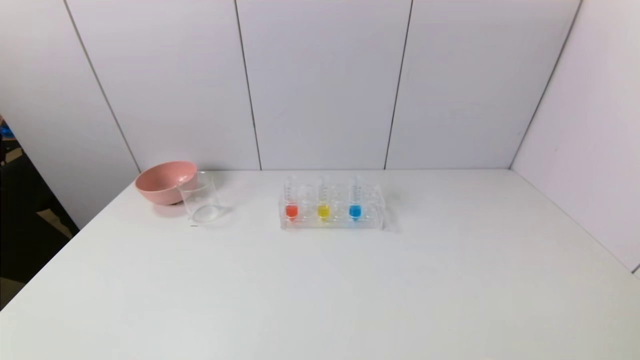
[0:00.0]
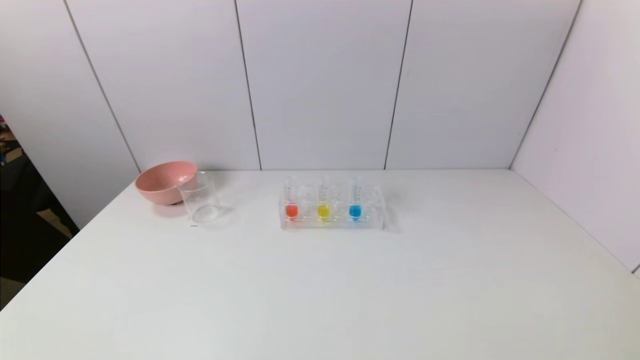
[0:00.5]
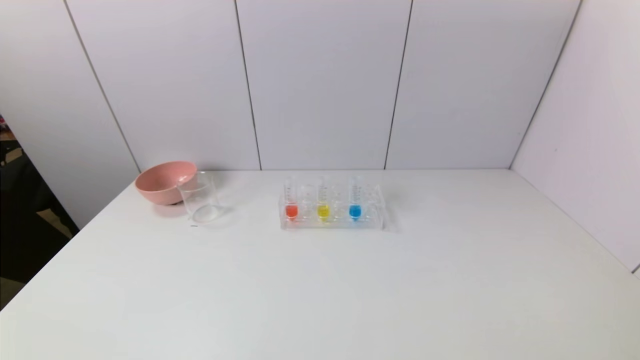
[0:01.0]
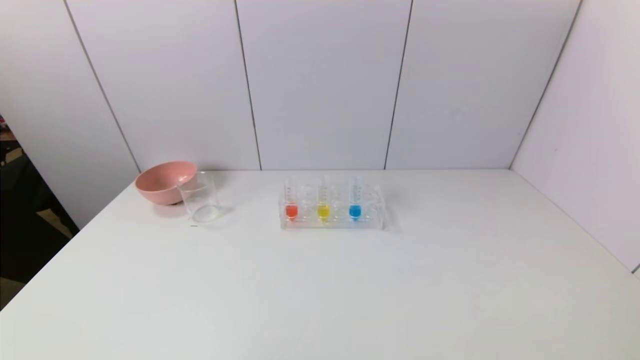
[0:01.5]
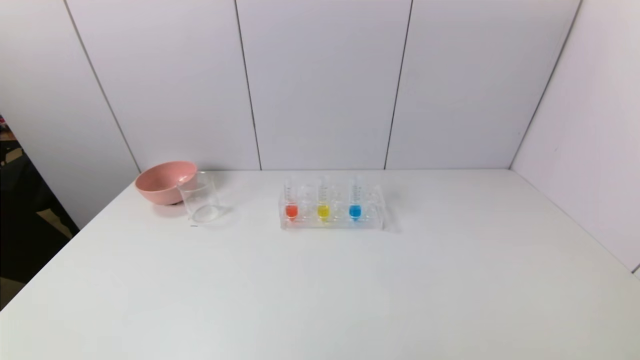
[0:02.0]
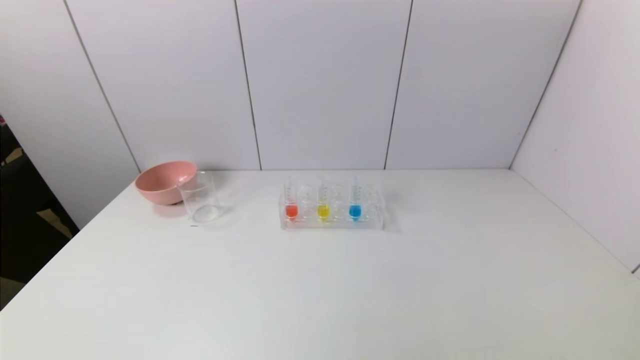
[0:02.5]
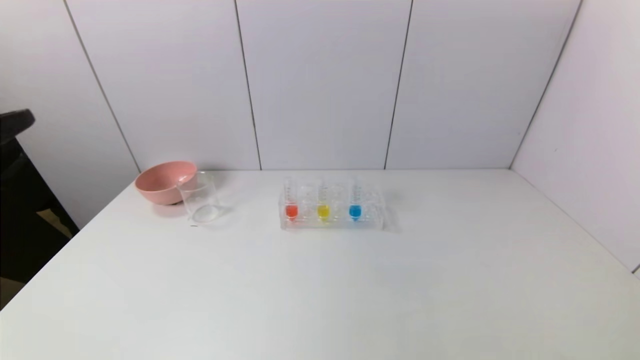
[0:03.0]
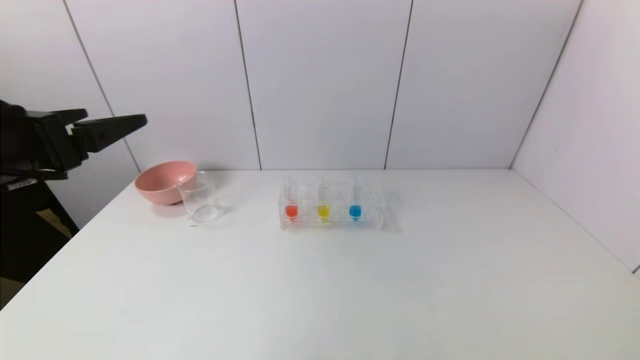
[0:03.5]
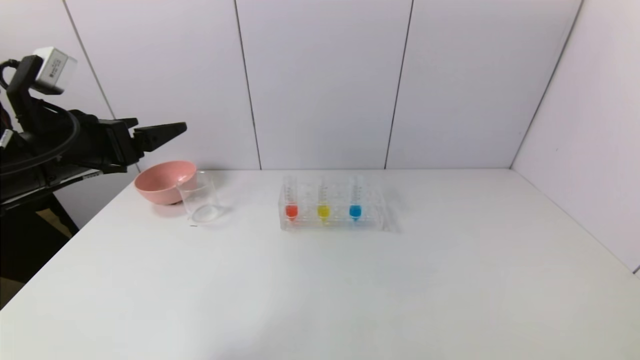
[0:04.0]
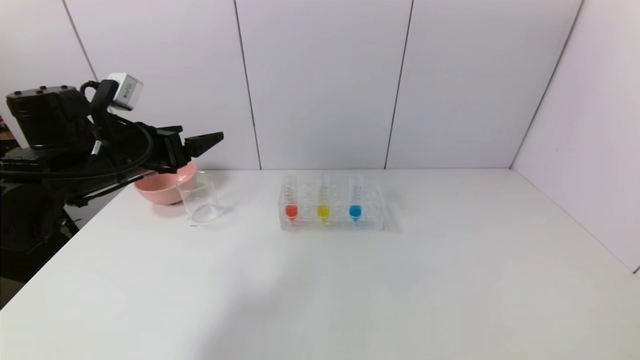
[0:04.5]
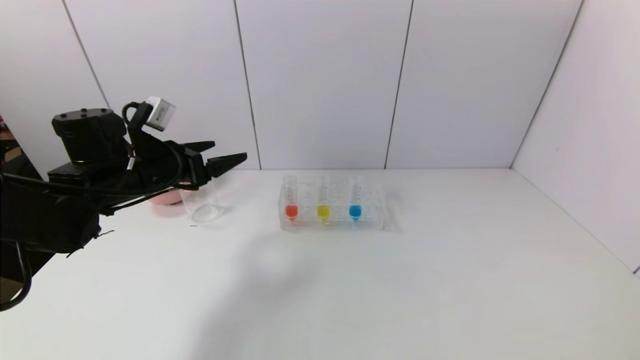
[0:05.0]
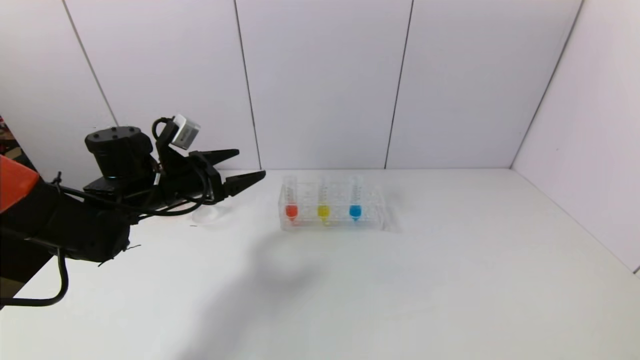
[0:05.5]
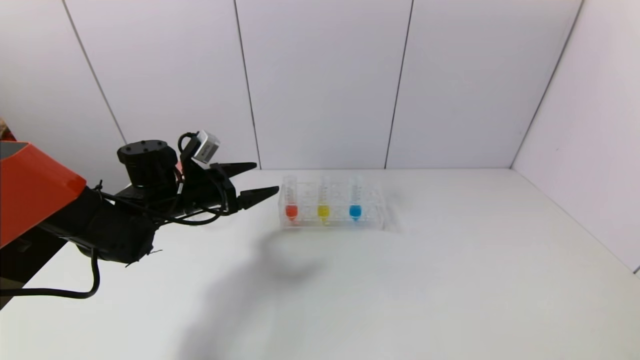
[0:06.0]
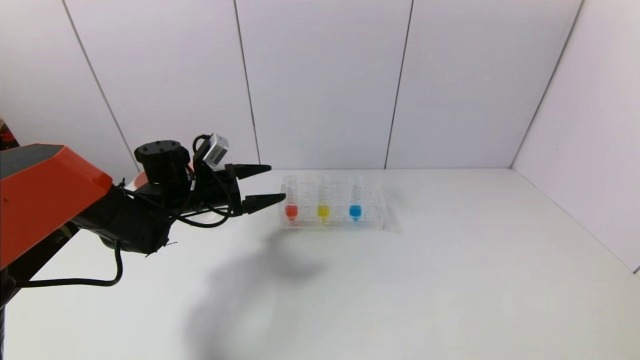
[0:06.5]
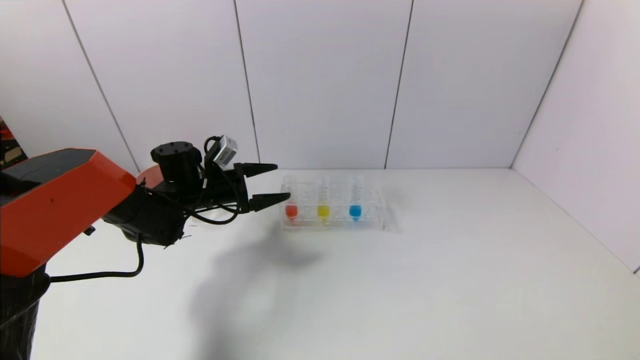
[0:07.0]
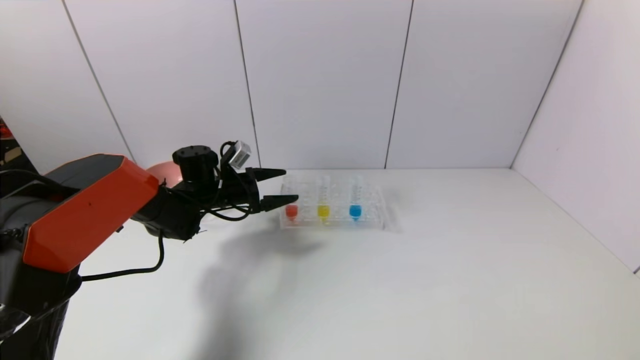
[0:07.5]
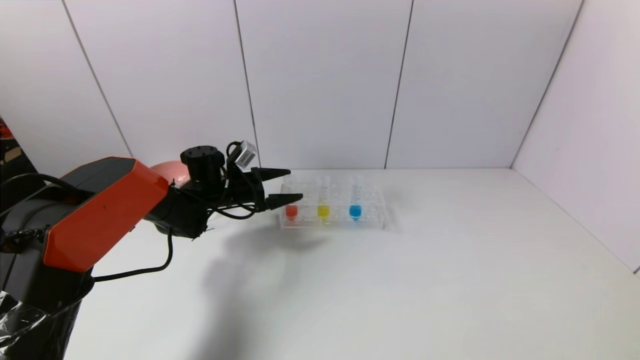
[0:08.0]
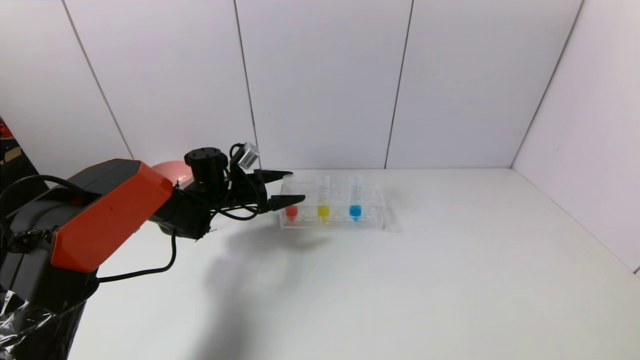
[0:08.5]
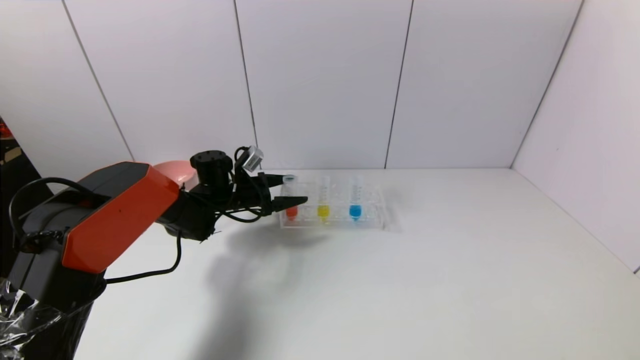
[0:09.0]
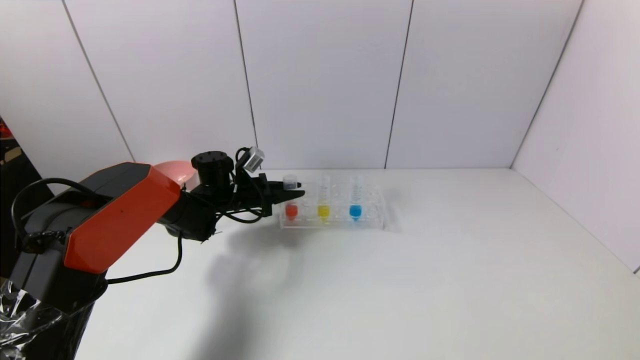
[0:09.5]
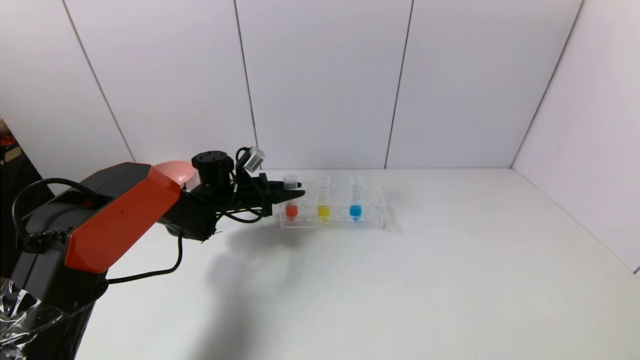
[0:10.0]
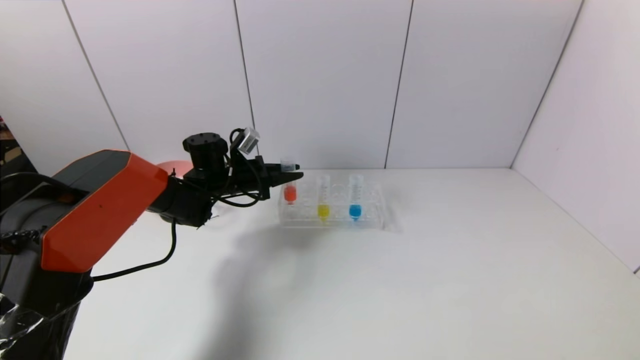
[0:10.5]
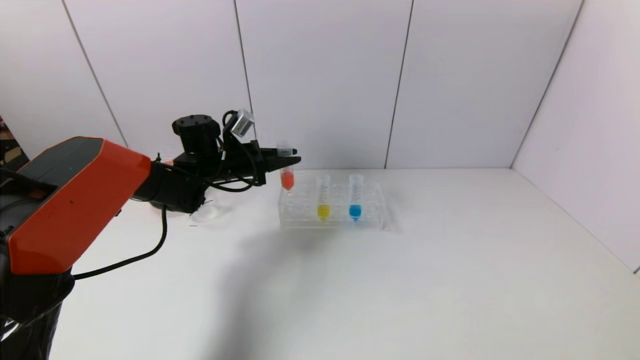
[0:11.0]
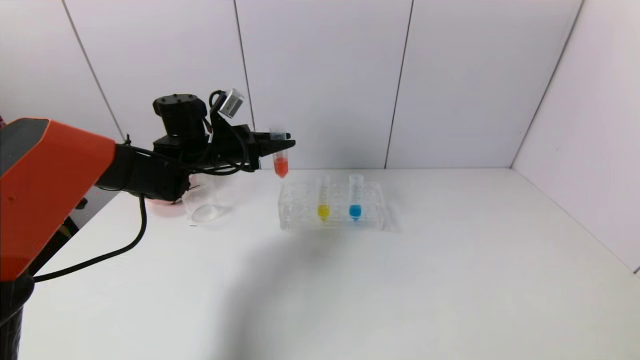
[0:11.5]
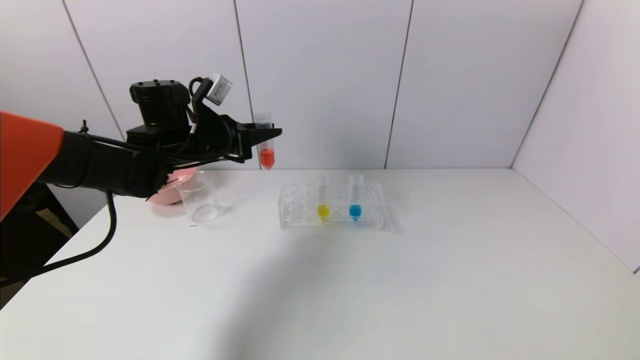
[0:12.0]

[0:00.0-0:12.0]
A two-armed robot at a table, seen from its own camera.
Task of the whole recording: pick up the test tube with red pigment and the test tube with blue pigment by grippers and pour them into the container.
Step, 0.0 to 9.5 s: Grasp the red reagent with the left gripper.
2.0 to 4.0 s: The left gripper is displaced forward by about 30 cm.
4.0 to 6.0 s: The left gripper goes about 20 cm downward, forward and to the right.
6.0 to 8.0 s: The left gripper is displaced forward by roughly 10 cm.
8.0 to 10.0 s: The left gripper closes.
10.0 to 12.0 s: The left gripper heads upward and backward, covering approximately 15 cm.

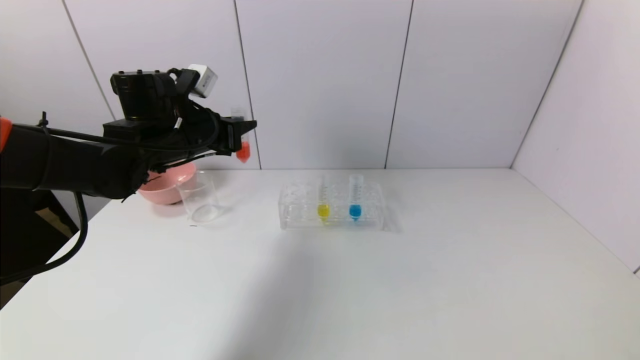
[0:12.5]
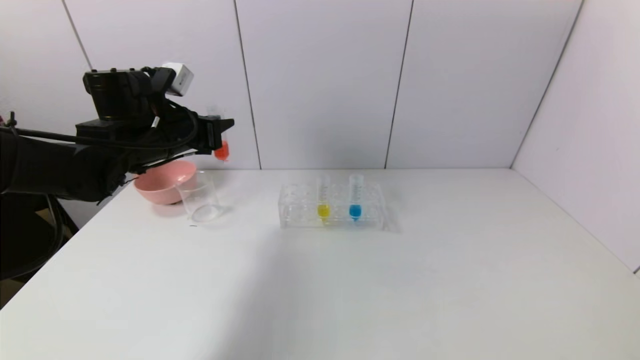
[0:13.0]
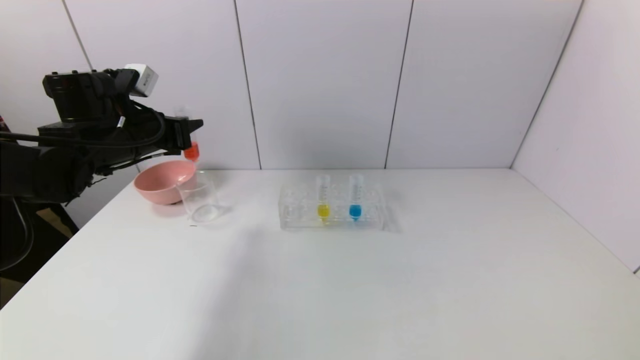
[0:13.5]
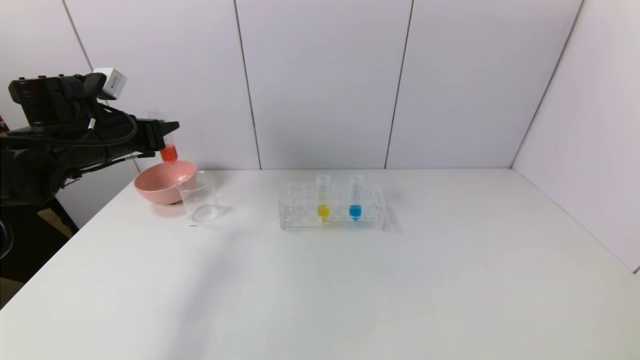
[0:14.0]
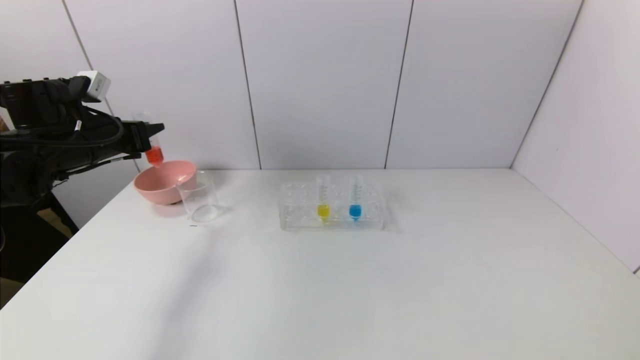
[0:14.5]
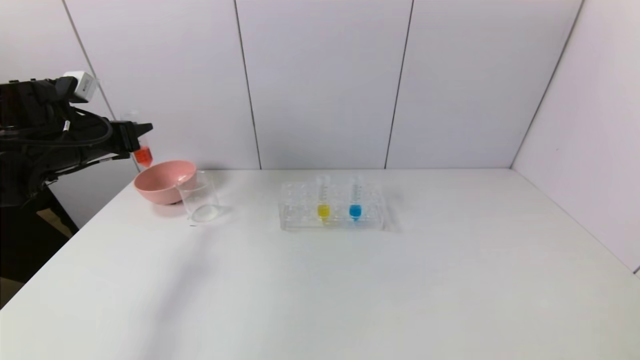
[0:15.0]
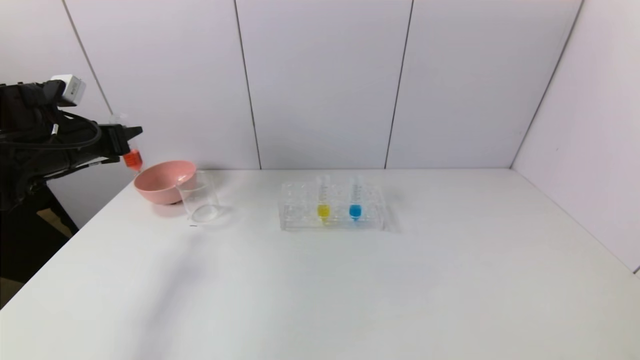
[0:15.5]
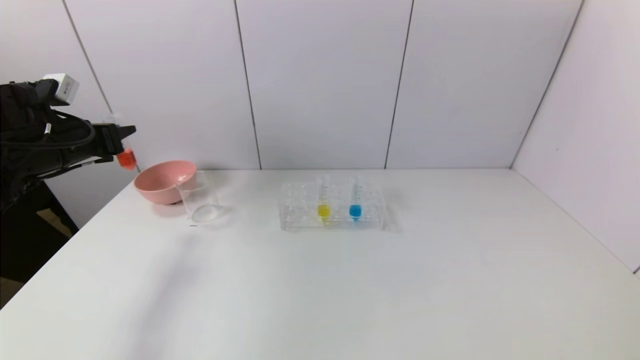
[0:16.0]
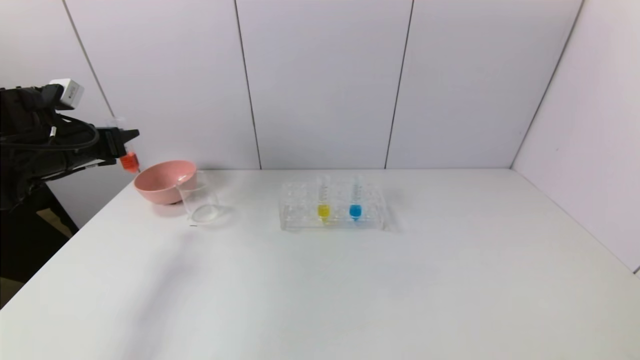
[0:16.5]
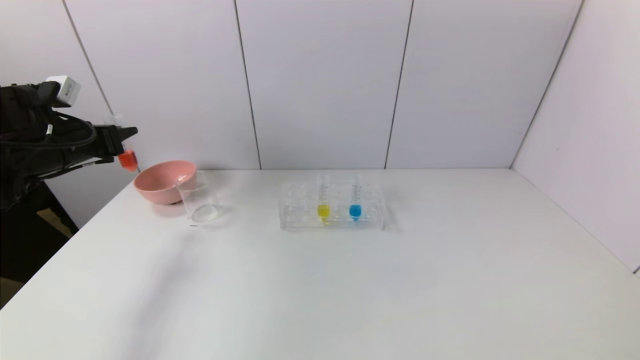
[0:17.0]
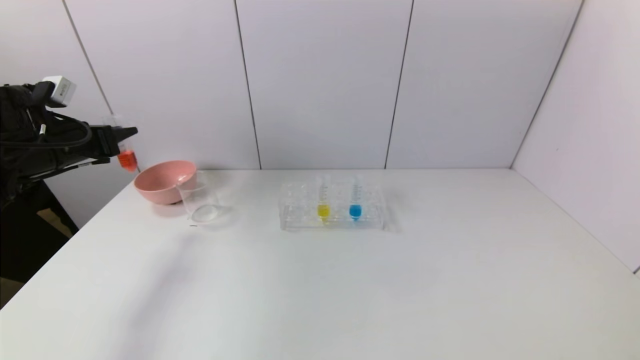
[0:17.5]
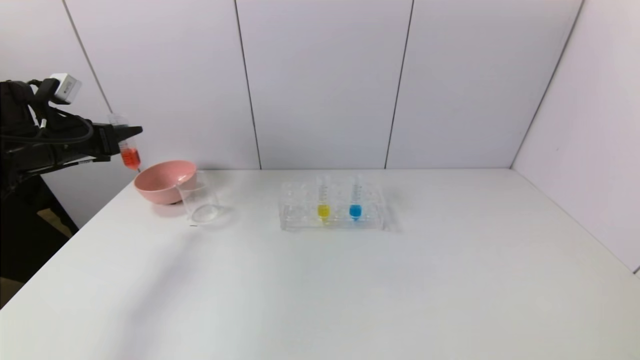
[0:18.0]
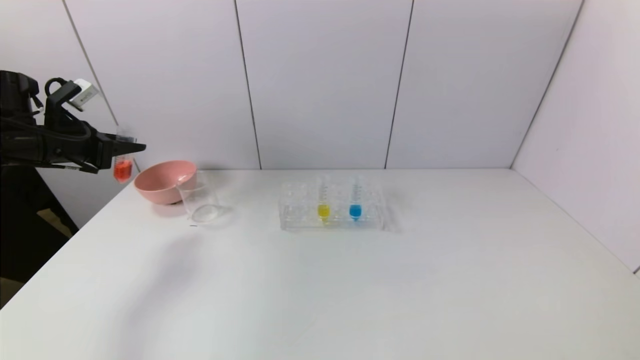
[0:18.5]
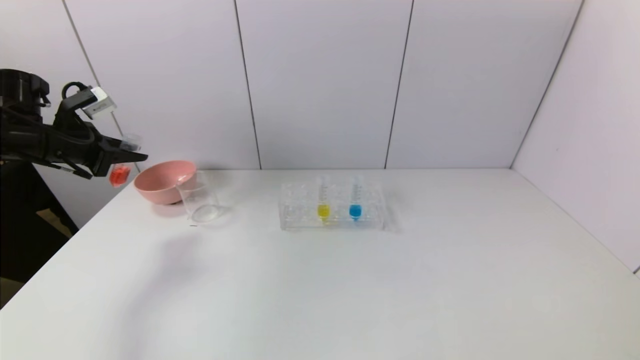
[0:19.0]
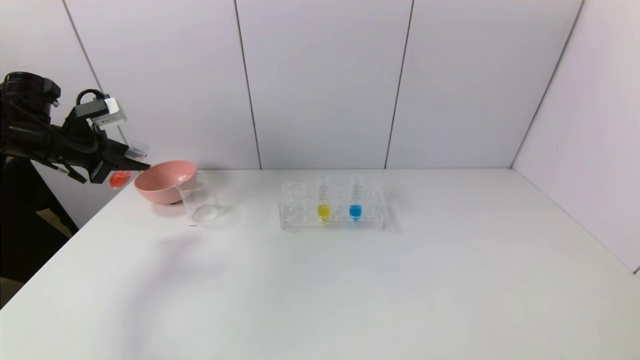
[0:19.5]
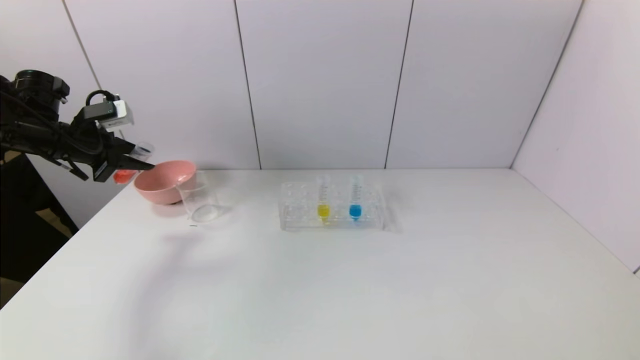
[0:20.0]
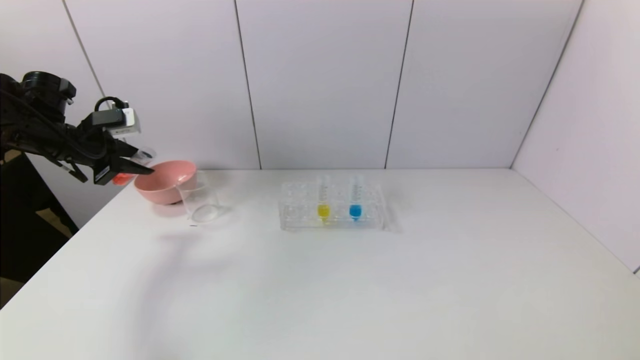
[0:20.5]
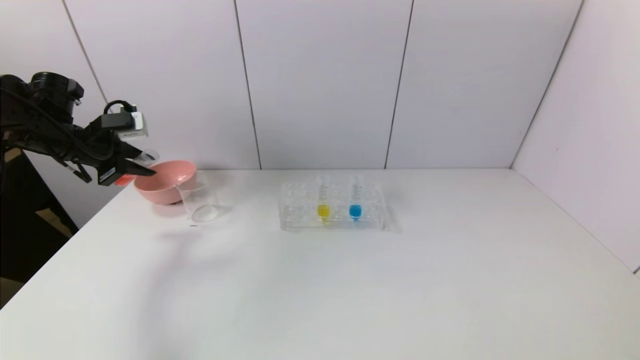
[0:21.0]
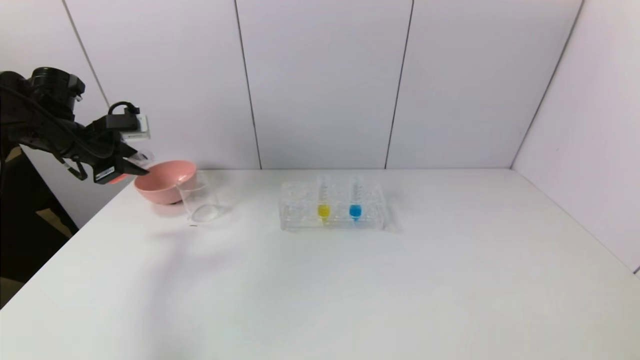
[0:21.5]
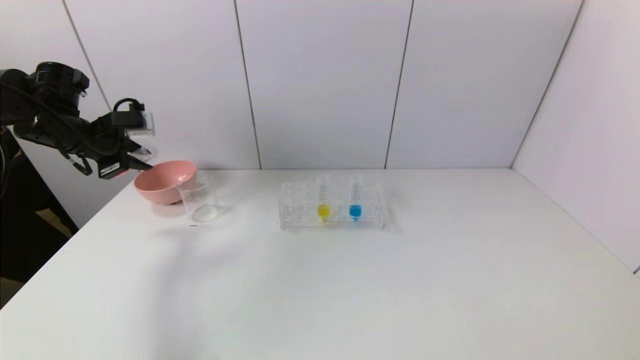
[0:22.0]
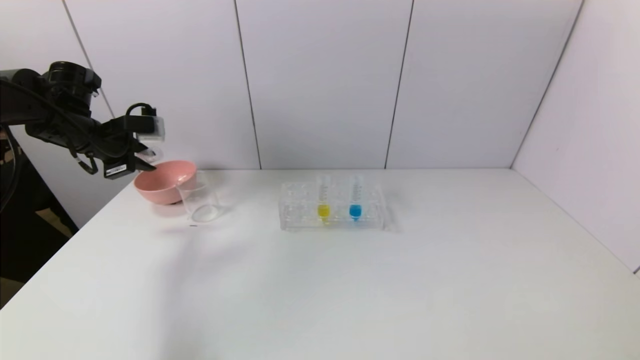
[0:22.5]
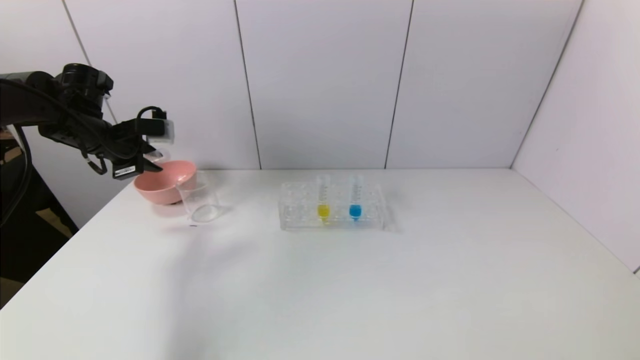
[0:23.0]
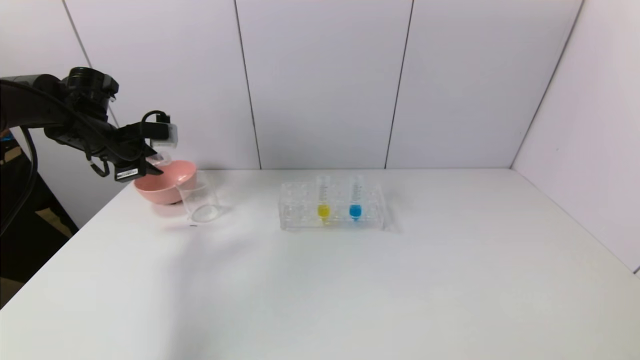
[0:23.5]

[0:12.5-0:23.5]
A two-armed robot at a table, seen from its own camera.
Task of the whole recording: pick up the test tube with red pigment and the test tube with blue pigment by grippers and pour them into the container.
12.5 to 14.5 s: The left gripper heads to the left, covering roughly 15 cm.
14.5 to 16.0 s: There are only small adjustments of the grippers.
20.0 to 21.5 s: The grippers make only small movements.
21.5 to 23.5 s: The grippers stay close to where they were, moving slightly.
